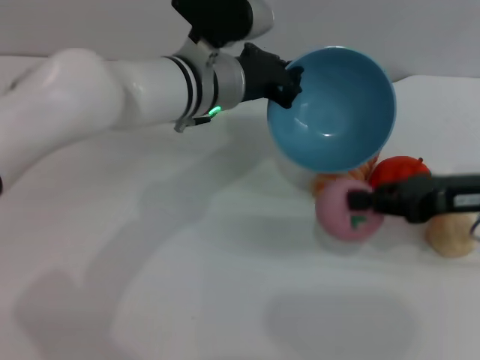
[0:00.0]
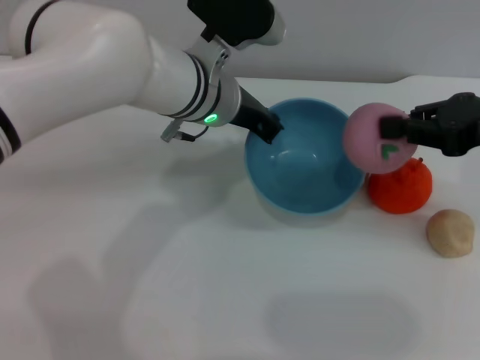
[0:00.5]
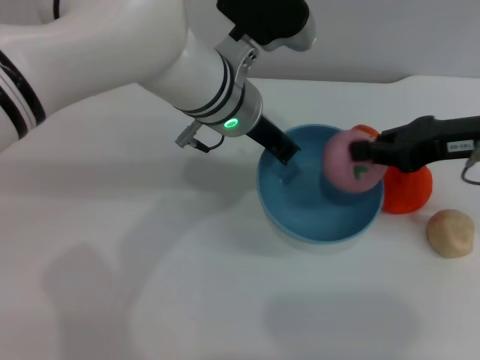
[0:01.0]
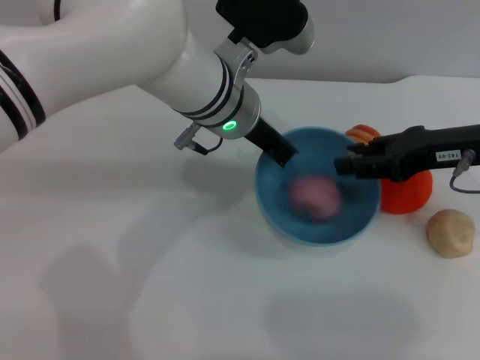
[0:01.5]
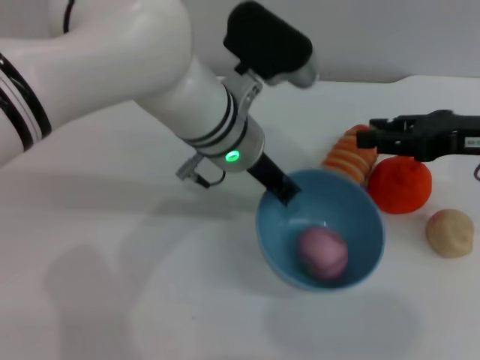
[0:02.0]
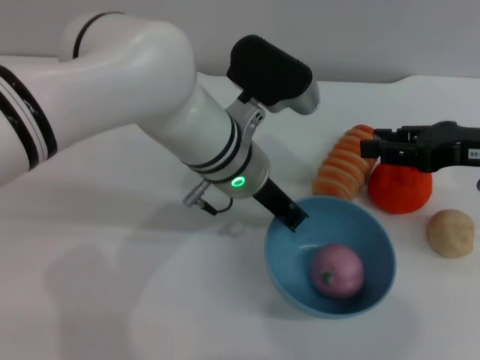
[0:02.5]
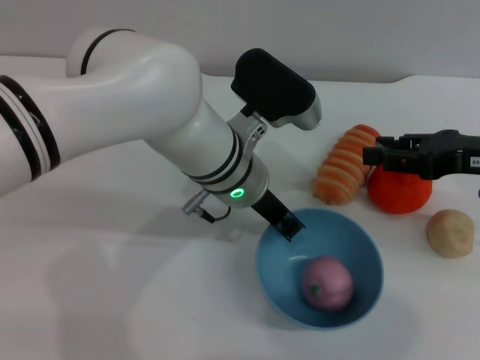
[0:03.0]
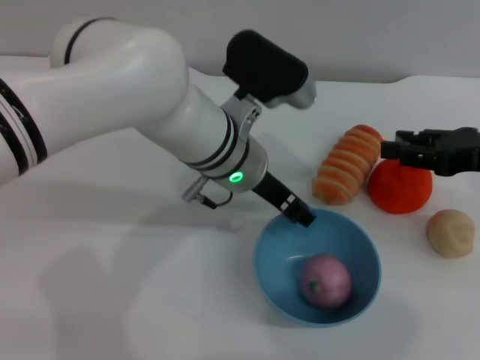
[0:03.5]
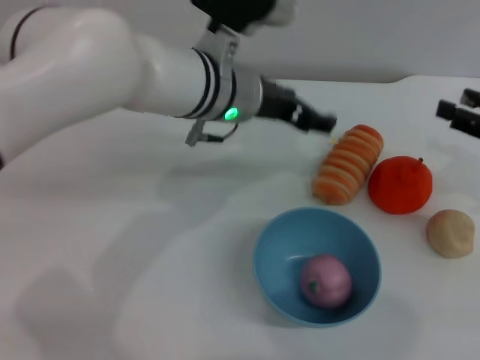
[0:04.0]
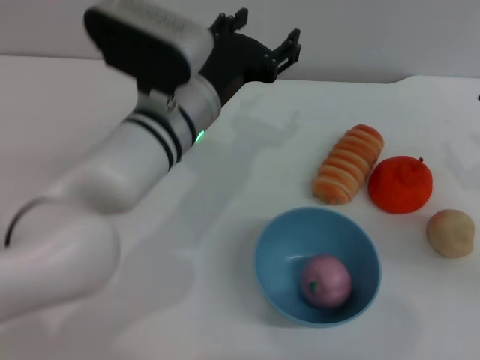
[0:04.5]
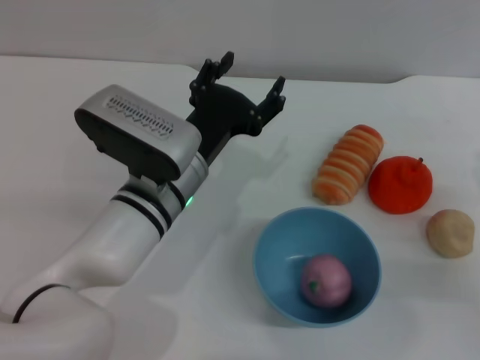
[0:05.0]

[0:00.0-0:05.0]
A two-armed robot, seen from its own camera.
Task of the whole recording: put the peach into the blue bowl and pour it out repeatedly.
Step, 0:00.0 to 0:01.5: Place the peach into the bowl.
Step, 0:02.0 to 0:04.0: Place the bowl on the table.
0:00.0 to 0:02.5: The right gripper opens. Meanwhile the left gripper ends up some 5 cm from where it was.
0:02.5 to 0:05.0: The right gripper shifts about 15 cm downward, backward and to the right, while the left gripper is displaced to the left and downward by some 10 cm, and opens up.
